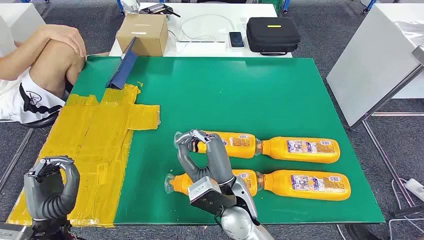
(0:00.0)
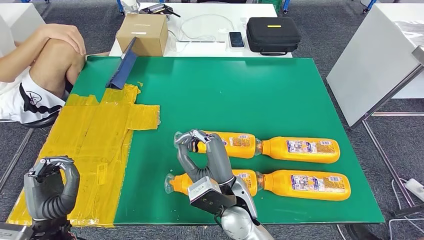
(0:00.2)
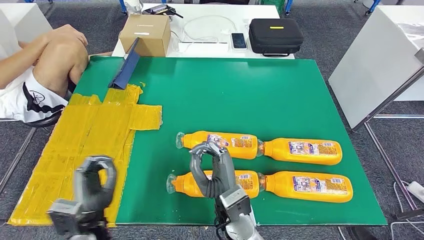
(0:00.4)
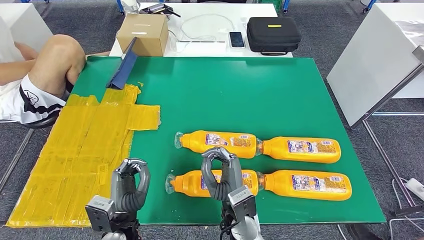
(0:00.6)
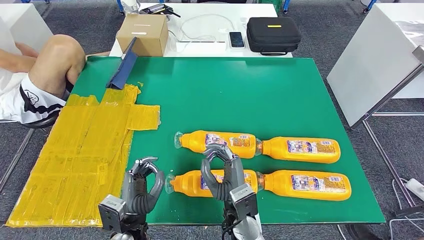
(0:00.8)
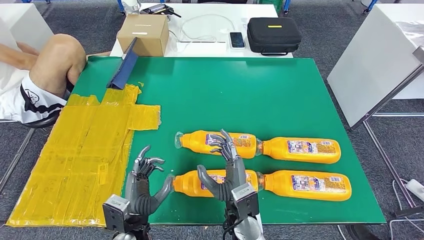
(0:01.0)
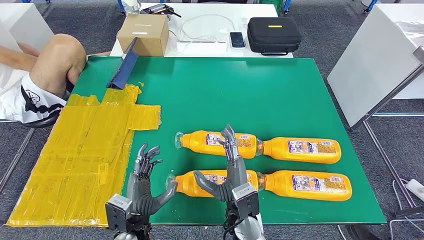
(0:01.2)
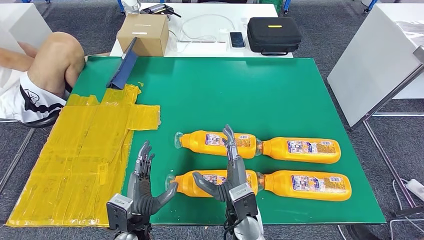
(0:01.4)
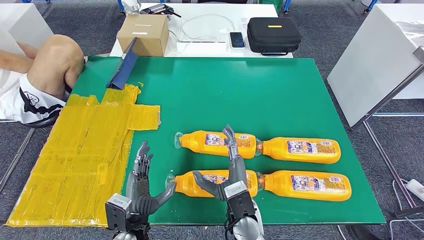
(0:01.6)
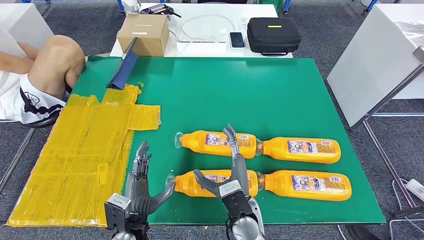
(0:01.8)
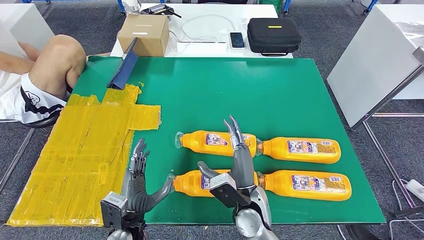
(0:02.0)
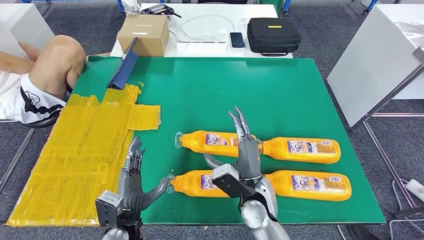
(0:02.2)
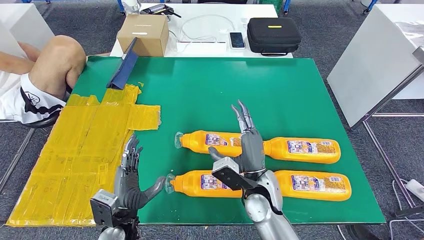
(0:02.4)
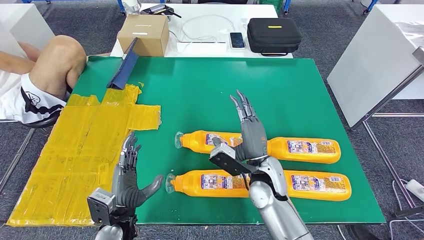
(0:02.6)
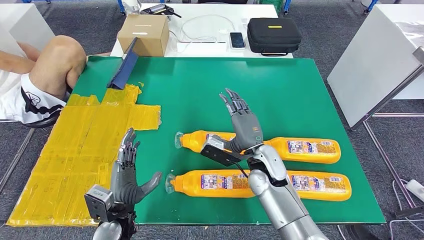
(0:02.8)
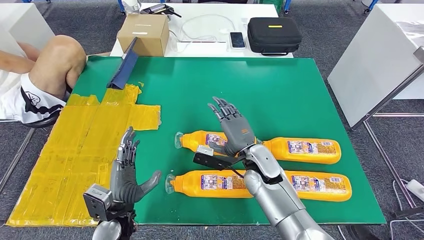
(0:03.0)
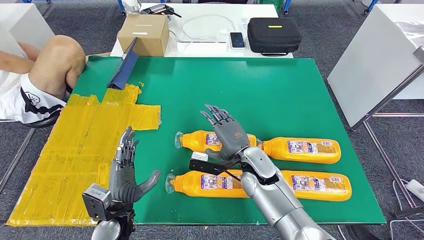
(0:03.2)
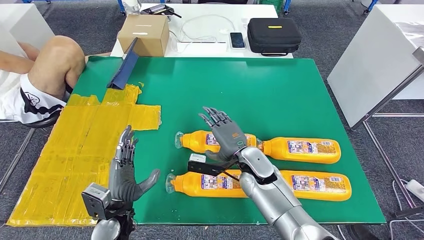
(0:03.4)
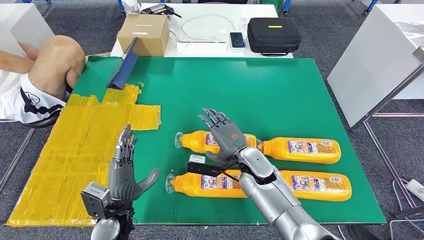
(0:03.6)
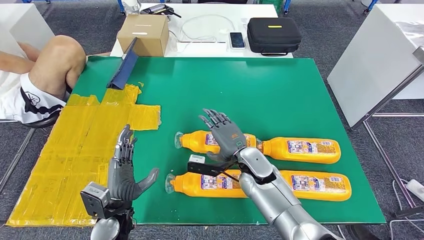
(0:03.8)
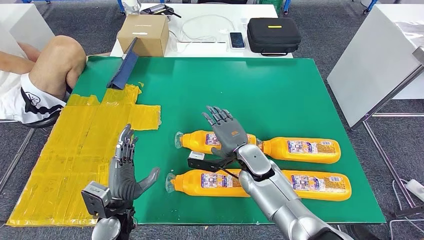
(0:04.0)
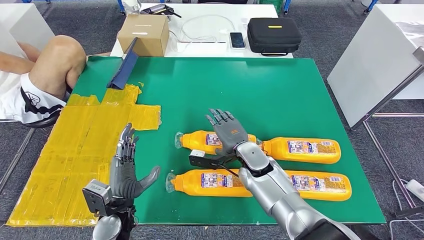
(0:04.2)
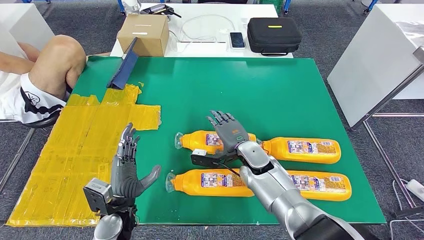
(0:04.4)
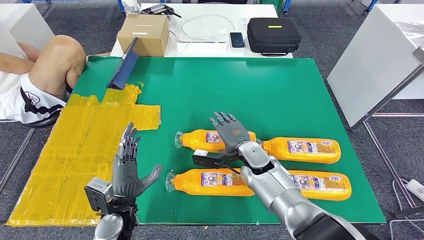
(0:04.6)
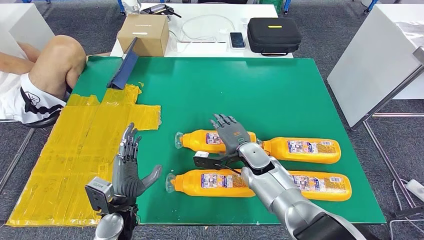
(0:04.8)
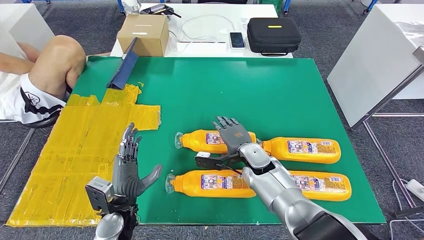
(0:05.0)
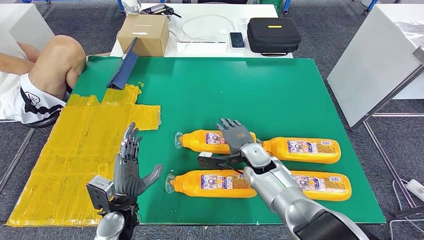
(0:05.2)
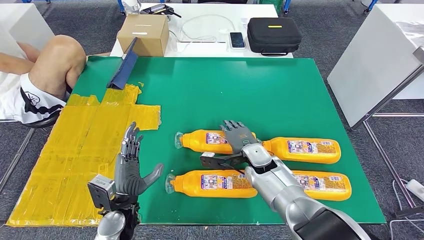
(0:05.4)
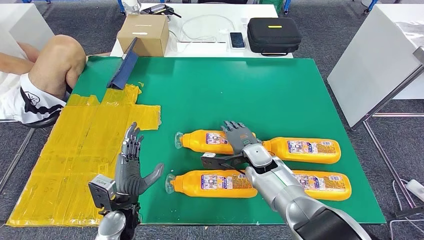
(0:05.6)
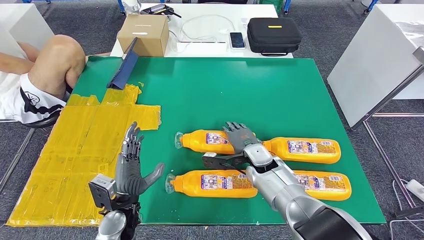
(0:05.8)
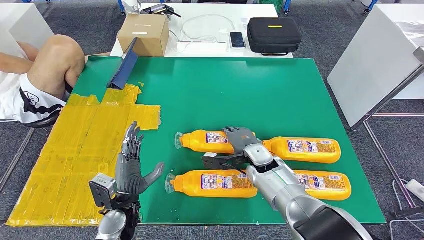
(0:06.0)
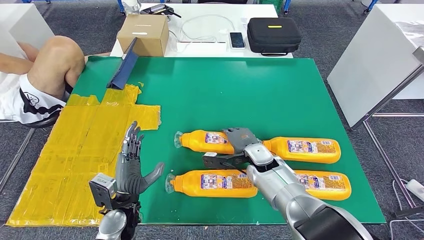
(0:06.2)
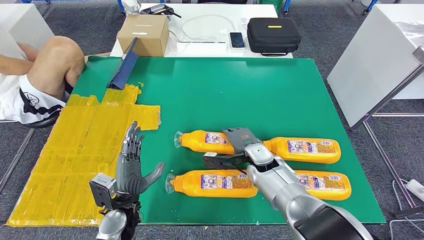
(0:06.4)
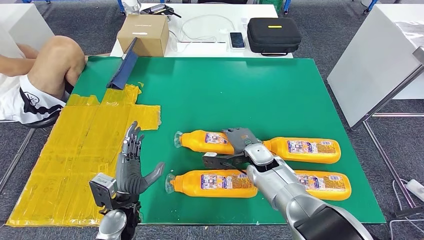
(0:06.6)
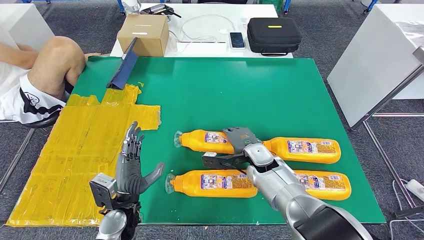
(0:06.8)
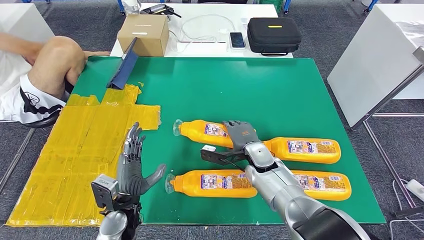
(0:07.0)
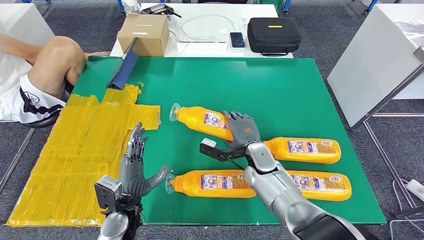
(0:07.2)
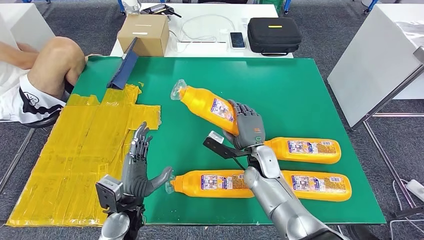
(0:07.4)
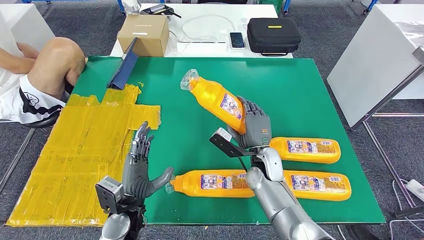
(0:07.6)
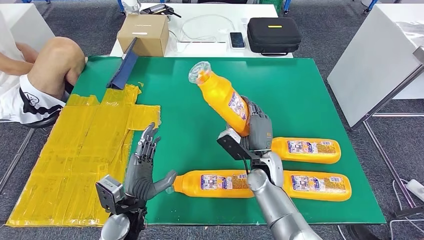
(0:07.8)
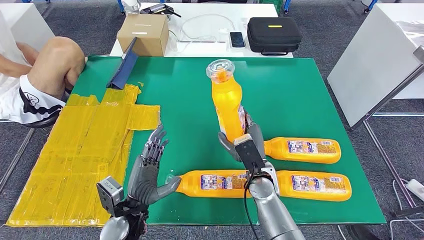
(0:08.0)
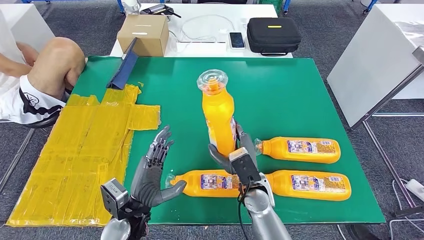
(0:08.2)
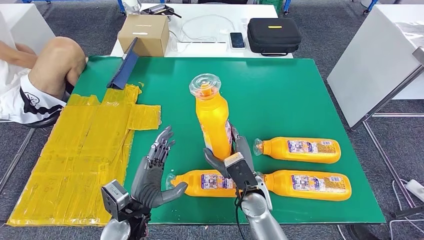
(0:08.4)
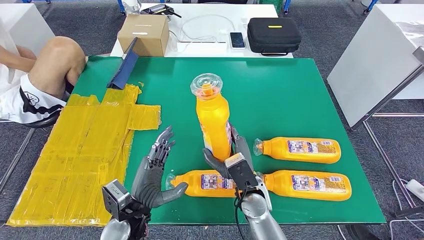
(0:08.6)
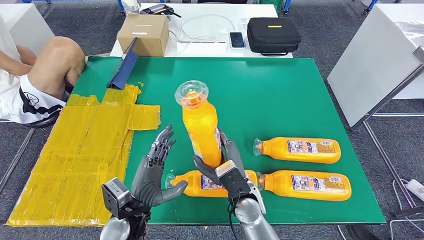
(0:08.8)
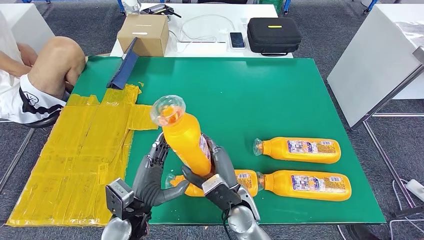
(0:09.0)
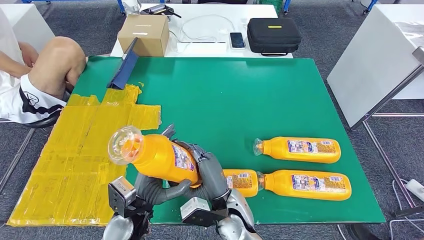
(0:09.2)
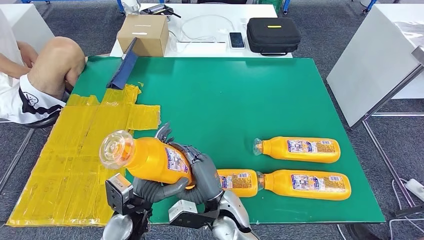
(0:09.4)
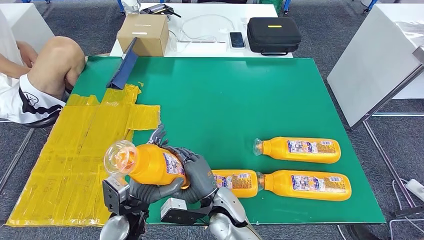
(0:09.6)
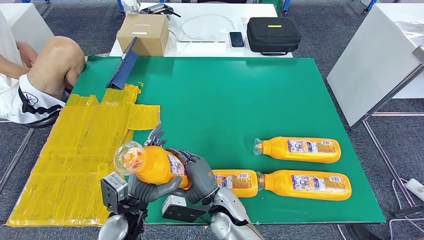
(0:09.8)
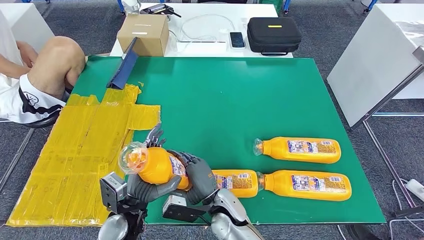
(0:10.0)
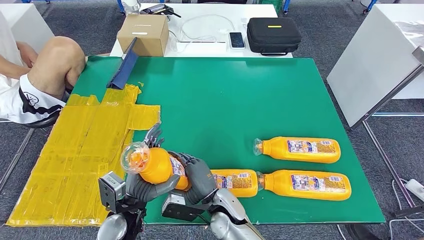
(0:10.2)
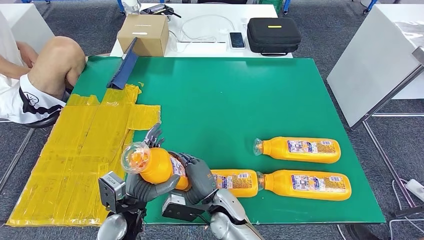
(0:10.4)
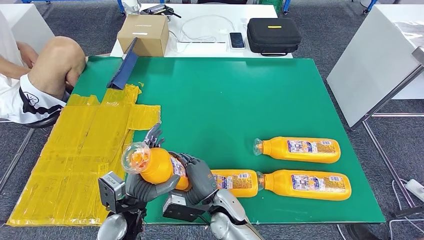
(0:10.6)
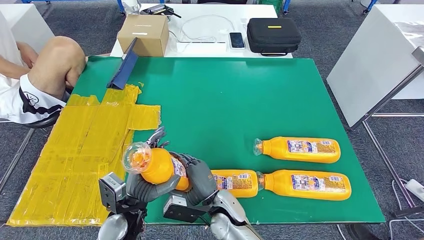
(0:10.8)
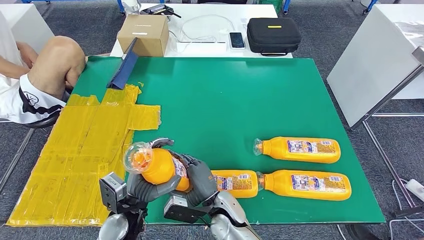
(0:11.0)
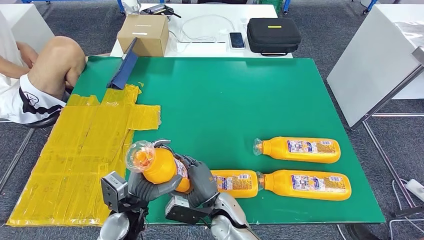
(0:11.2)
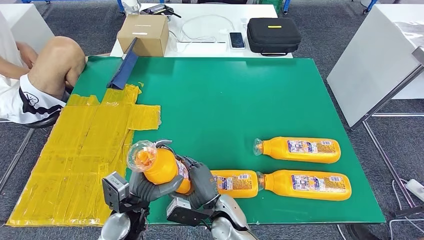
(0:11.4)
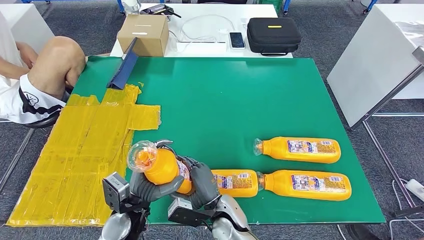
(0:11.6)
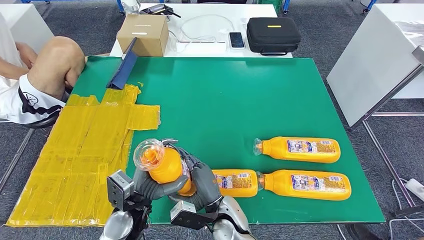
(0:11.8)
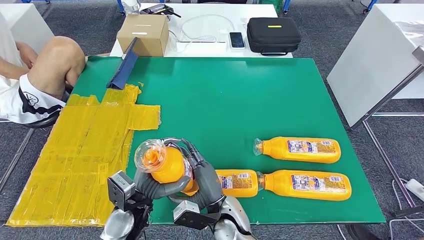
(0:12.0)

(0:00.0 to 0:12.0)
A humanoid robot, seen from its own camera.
Step, 0:00.0 - 0:08.6: Take the fast-moving consumer goods bottle from the table.
0:01.6 - 0:03.0: The right hand shifts some 10 cm forward.
0:04.4 - 0:06.0: The hands move only a little.
0:07.6 - 0:09.0: The right hand heads backward and to the left, covering some 15 cm.
0:09.0 - 0:10.4: The right hand ends up some 5 cm from where it was.
0:10.4 - 0:12.0: There are only small adjustments of the hands.

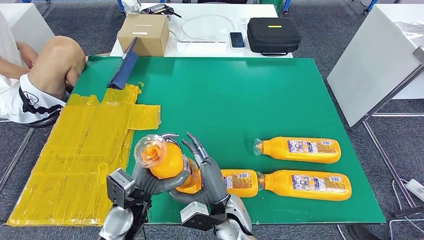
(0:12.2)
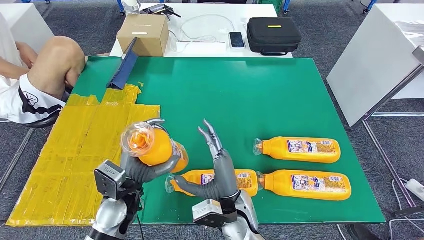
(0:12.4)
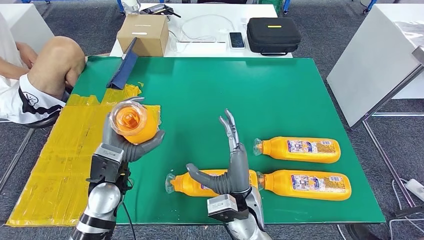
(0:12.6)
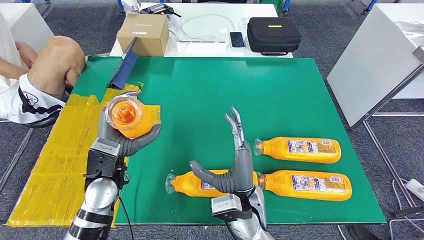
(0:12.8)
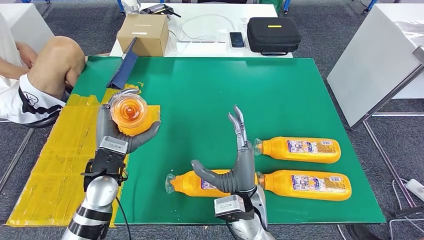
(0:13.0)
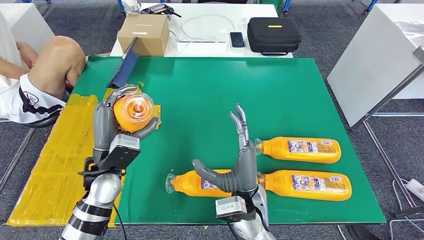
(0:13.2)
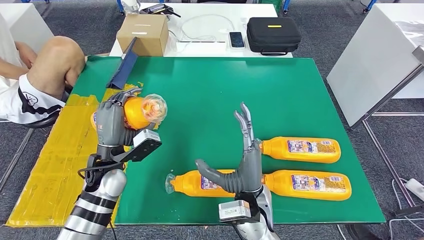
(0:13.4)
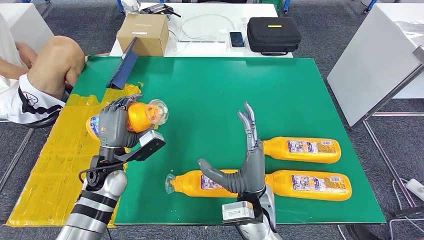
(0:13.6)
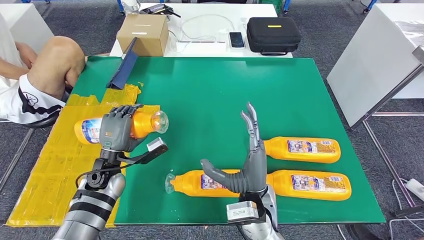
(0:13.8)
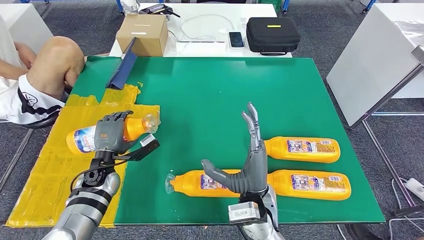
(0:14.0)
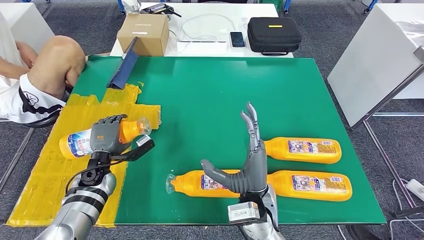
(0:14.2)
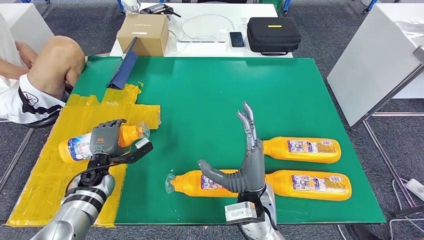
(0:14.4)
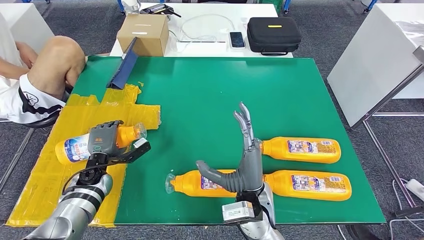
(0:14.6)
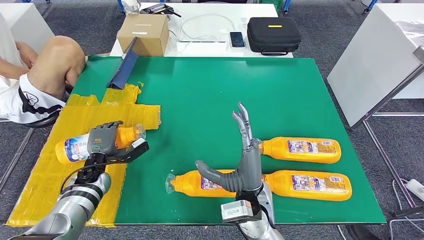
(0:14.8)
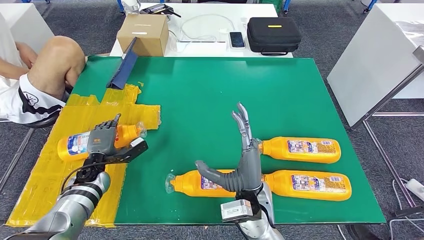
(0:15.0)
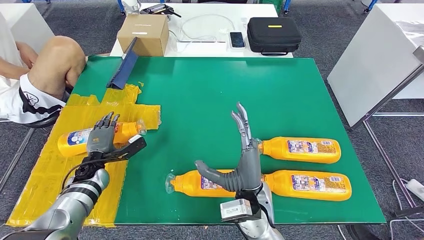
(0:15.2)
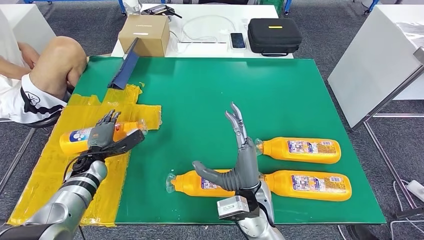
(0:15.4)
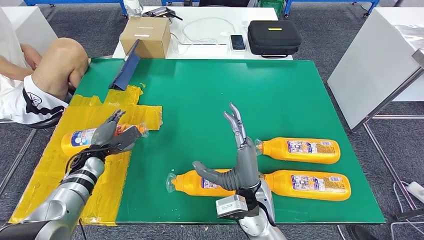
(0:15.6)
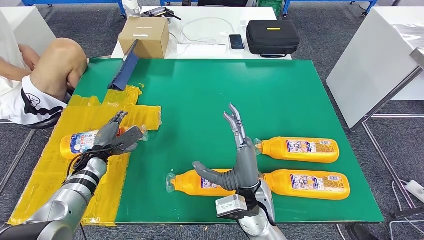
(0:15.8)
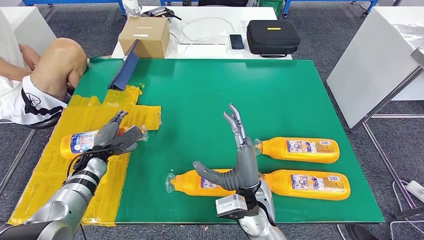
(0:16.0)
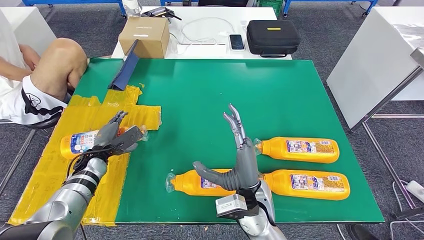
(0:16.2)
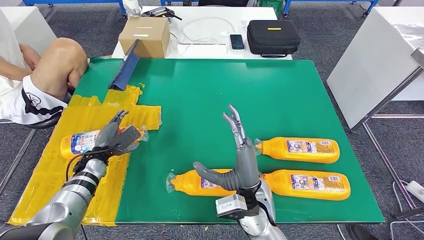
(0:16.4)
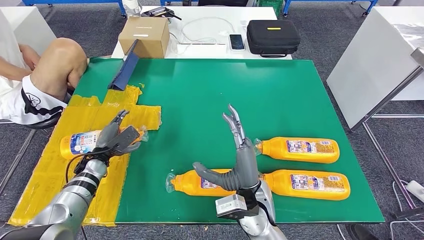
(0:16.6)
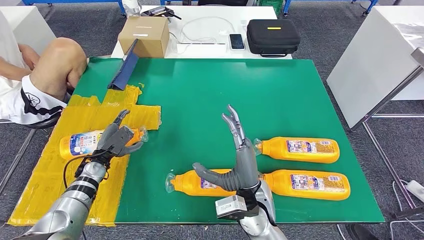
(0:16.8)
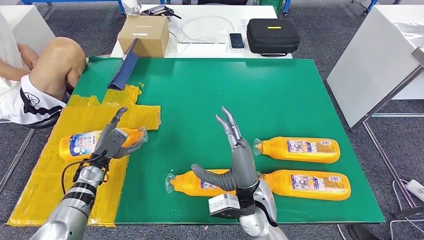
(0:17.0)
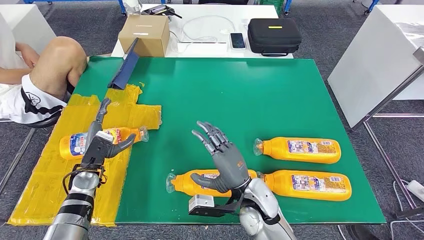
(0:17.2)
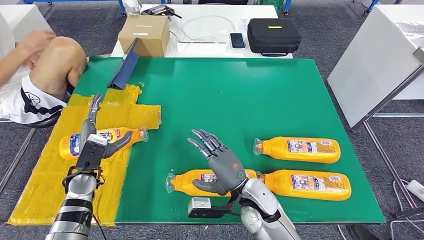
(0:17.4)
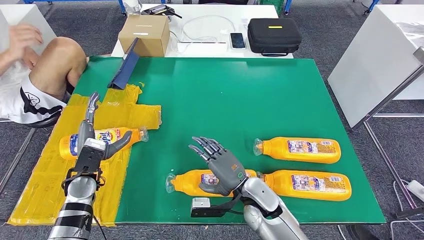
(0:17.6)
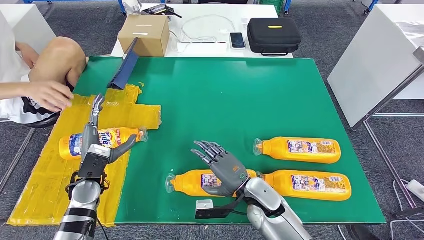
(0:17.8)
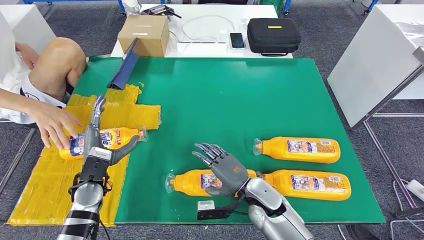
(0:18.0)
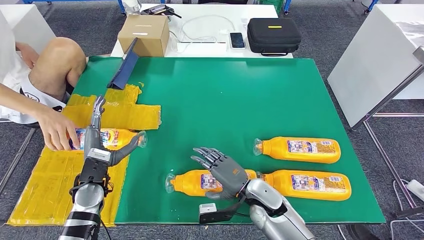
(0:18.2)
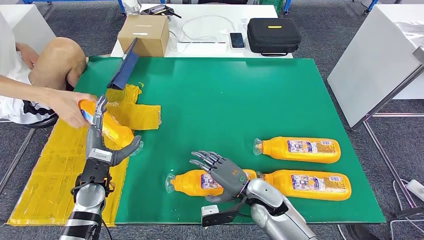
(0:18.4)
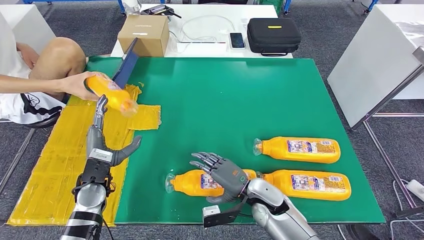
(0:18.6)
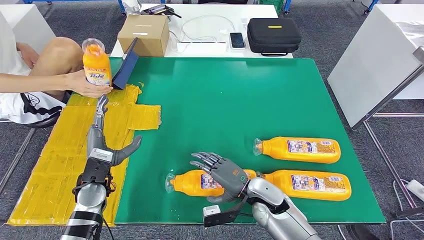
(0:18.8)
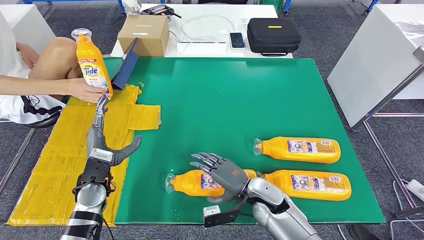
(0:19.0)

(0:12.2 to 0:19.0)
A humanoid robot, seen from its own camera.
Step, 0:12.2 - 0:15.6: Flip the fast-moving consumer goods bottle to the front side.
0:12.2 - 0:13.6: The right hand shifts about 5 cm upward, while the left hand heads forward and to the left, covering about 10 cm.
0:13.6 - 0:15.0: The left hand moves downward and to the left, approximately 15 cm.
0:16.2 - 0:17.6: The right hand goes roughly 5 cm downward. Meanwhile the left hand is displaced backward by about 5 cm.
0:17.6 - 0:19.0: The hands stay close to where they were, moving slightly.
